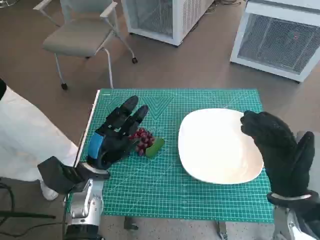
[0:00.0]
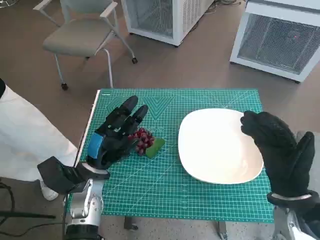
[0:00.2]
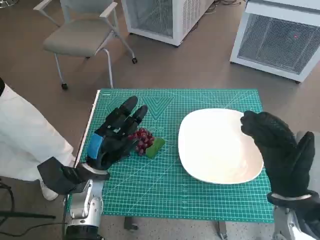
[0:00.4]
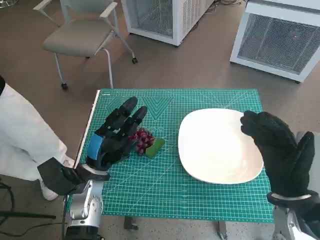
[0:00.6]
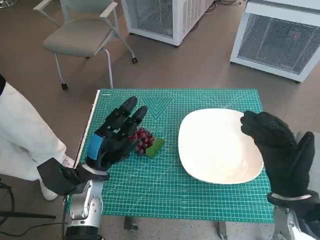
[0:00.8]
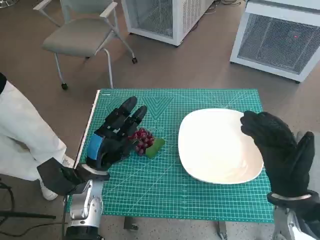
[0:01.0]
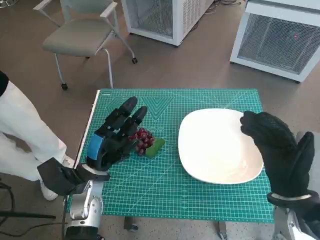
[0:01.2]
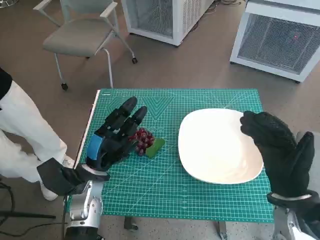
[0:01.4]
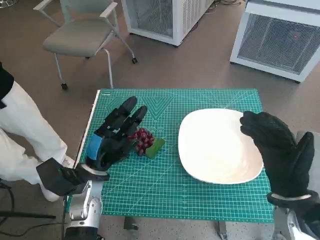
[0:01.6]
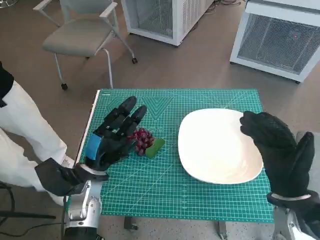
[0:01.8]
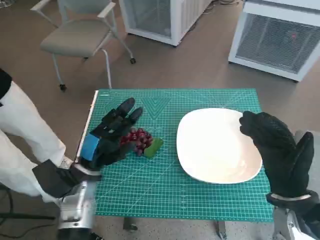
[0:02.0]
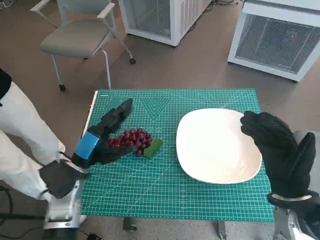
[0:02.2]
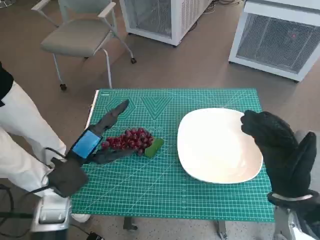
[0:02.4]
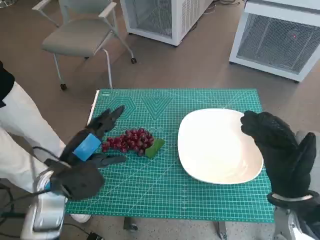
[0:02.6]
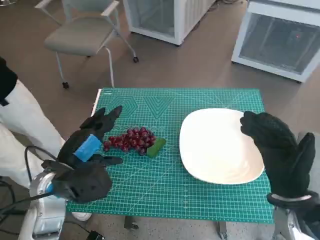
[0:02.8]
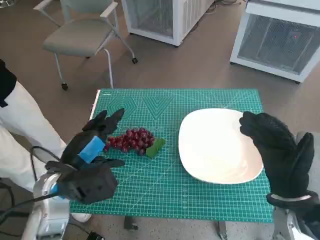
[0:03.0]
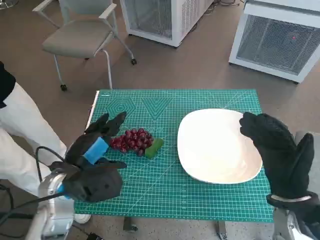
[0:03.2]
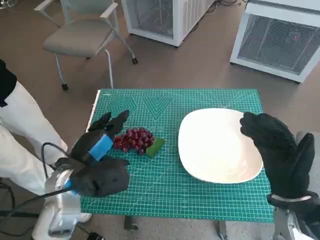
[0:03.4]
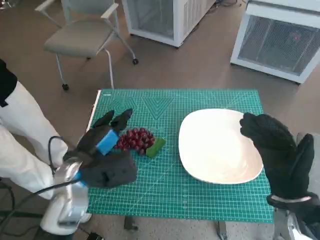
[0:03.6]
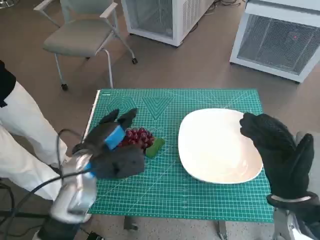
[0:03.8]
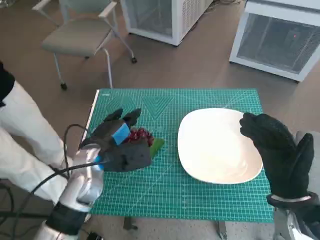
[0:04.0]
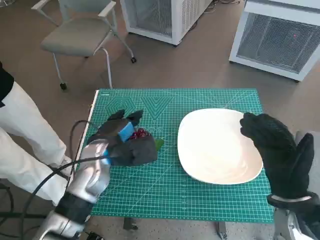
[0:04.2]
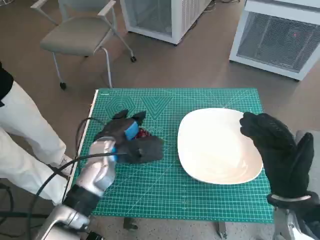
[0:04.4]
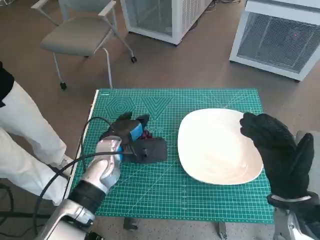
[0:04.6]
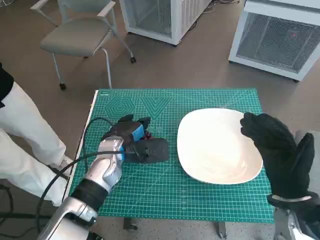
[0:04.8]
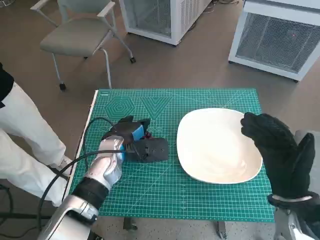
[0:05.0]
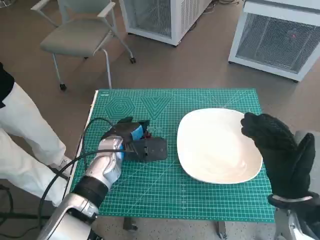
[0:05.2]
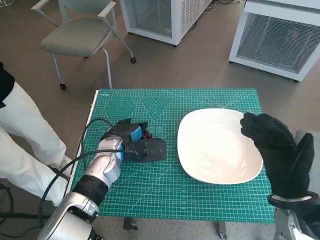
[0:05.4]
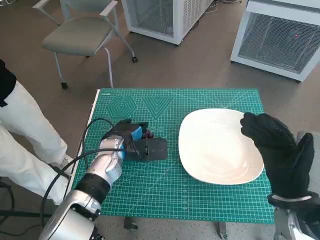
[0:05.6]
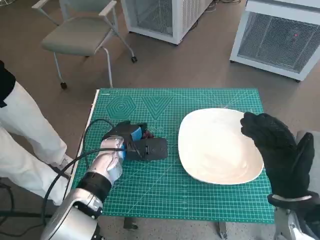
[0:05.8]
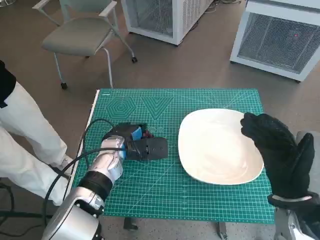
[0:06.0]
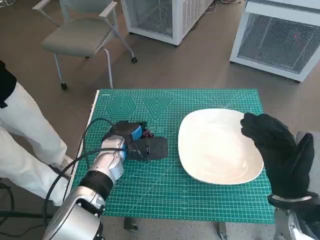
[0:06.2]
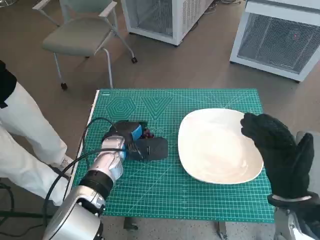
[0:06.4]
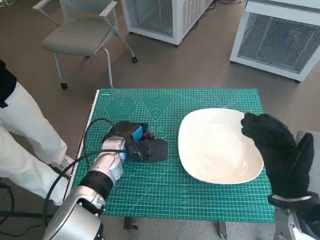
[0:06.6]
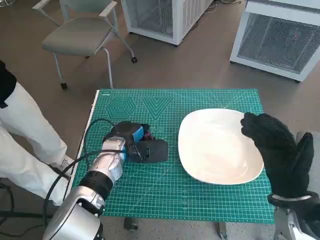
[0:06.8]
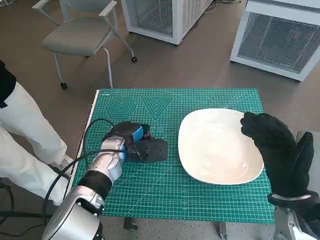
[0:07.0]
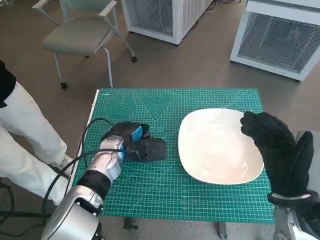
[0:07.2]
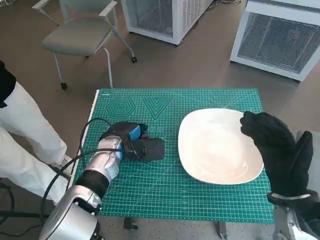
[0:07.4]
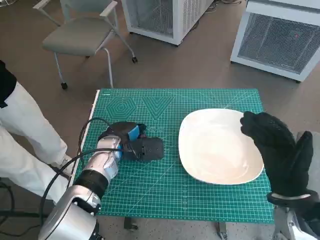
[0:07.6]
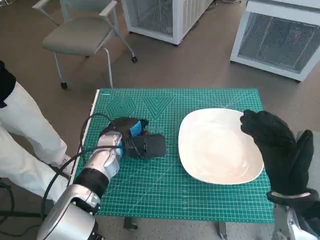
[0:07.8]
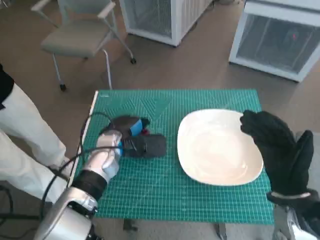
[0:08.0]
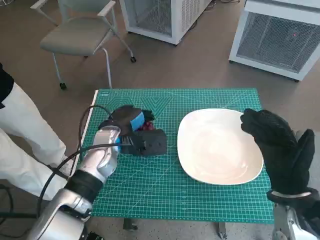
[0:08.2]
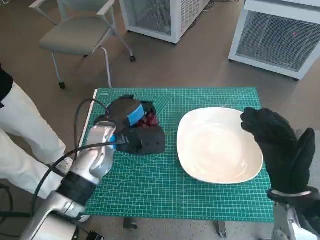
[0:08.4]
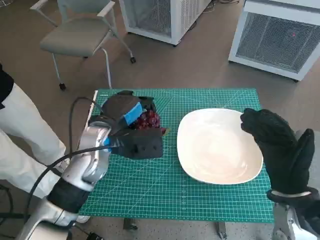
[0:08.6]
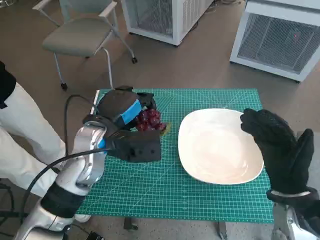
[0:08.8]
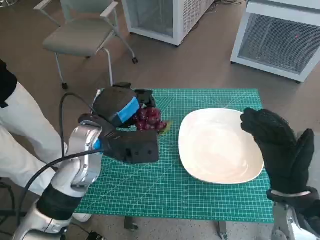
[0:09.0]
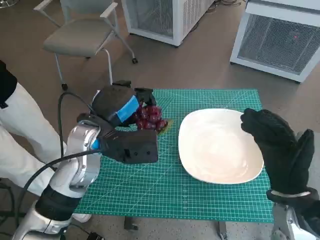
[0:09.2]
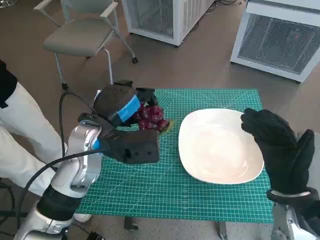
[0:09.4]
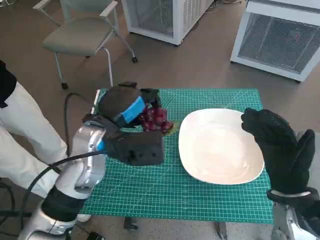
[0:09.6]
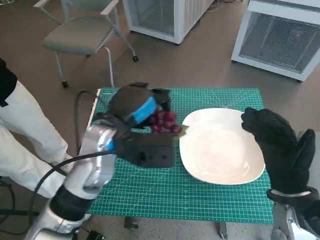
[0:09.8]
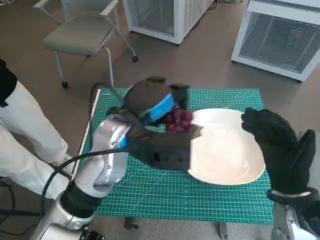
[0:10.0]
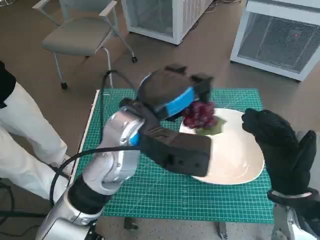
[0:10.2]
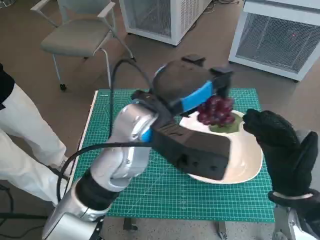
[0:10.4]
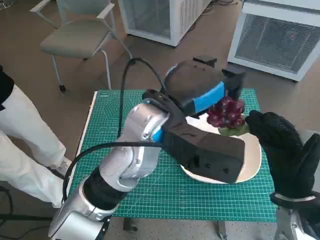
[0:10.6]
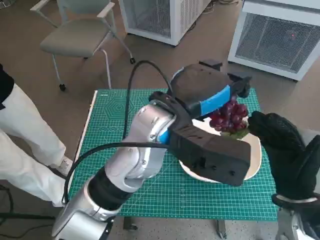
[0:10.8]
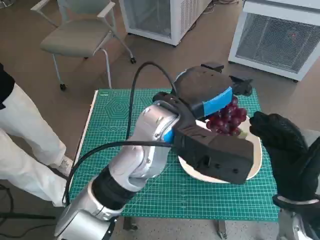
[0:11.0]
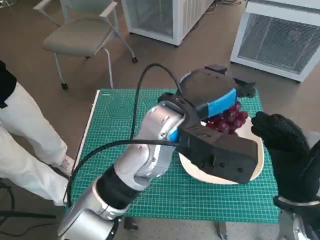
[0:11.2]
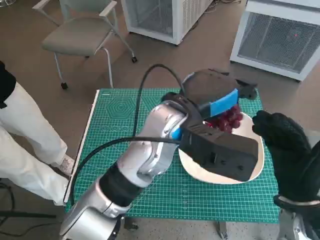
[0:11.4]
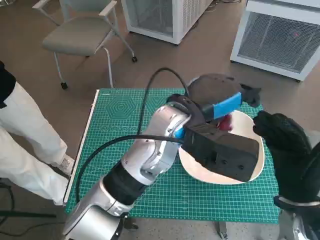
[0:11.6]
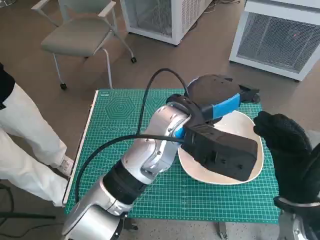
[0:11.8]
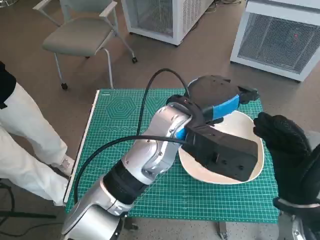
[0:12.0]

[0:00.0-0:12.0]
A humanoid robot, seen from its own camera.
Task of the whole recording: Pick up the grapes and put them on the plate.
Step, 0.0 to 7.6 s: Grasp the grapes with left hand.
Step, 7.8 to 11.6 s: Place the grapes in the plate with left hand.
1.6 to 3.0 s: The left hand travels upward by roughly 5 cm.
3.0 to 4.4 s: The left hand is displaced forward and to the right by approximately 10 cm.
4.4 to 7.6 s: There are only small adjustments of the hands.
7.6 to 9.0 s: The left hand heads upward, covering approximately 10 cm.
9.0 to 10.4 s: The left hand heads to the right and upward, covering about 10 cm.
10.4 to 12.0 s: The left hand ends up approximately 5 cm from where it was.

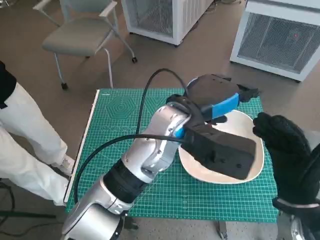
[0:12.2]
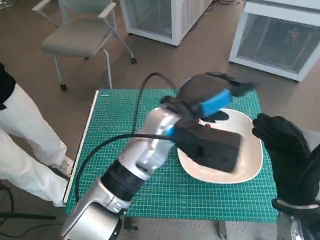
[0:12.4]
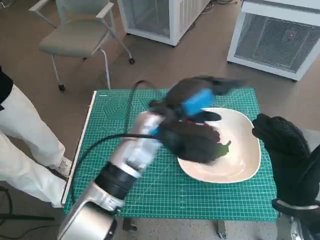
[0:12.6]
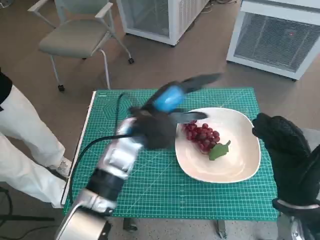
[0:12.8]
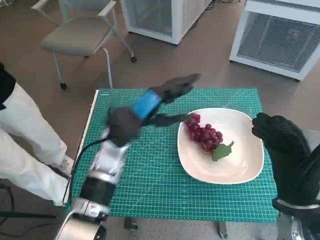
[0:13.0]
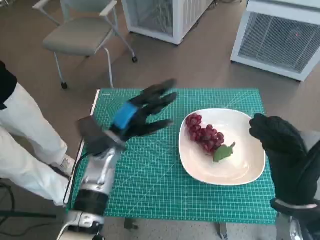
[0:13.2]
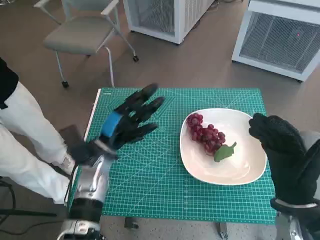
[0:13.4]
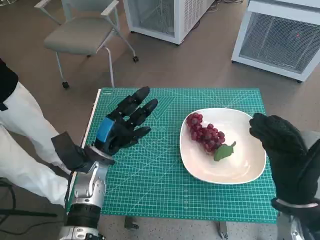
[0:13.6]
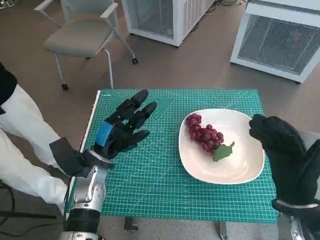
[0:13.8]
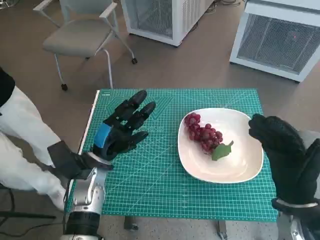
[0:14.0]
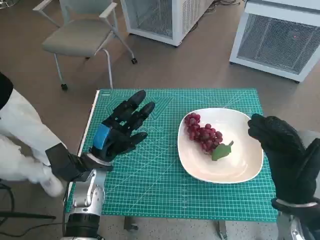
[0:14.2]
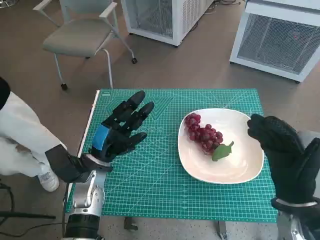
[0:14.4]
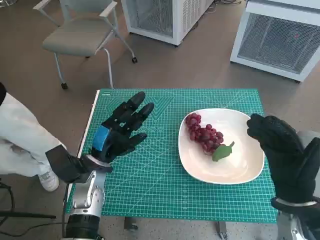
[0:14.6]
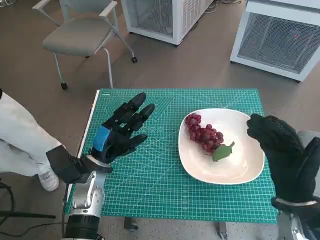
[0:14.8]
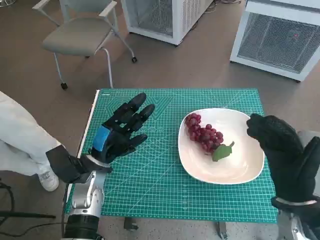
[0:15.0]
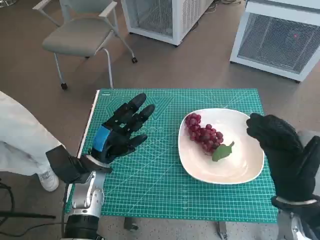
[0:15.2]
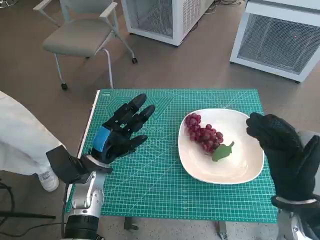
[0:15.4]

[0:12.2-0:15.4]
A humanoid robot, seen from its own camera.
Task of the whole recording: Pick up the grapes and put them on the plate.
12.2 to 13.8 s: The left hand goes approximately 25 cm to the left and downward.
13.8 to 15.4 s: Both hands stay about where they are.

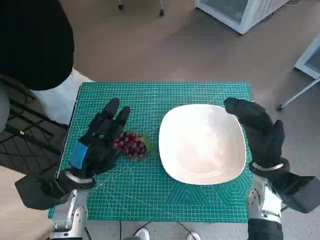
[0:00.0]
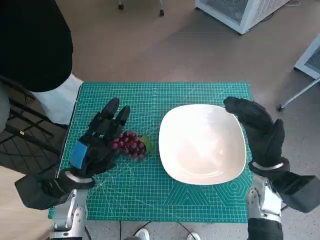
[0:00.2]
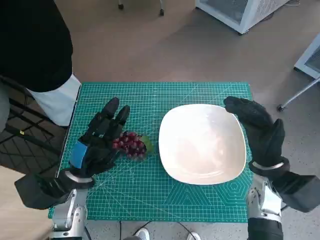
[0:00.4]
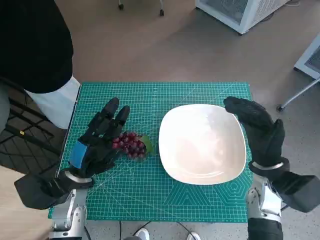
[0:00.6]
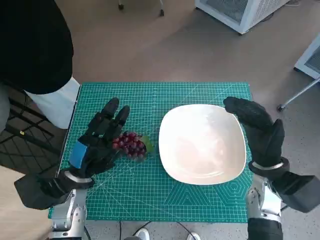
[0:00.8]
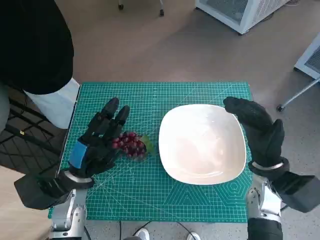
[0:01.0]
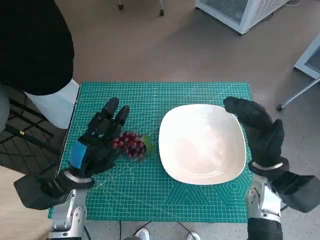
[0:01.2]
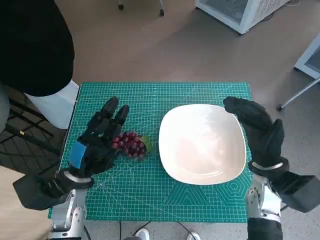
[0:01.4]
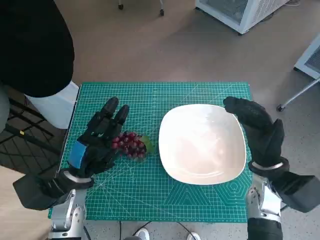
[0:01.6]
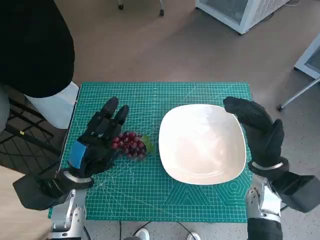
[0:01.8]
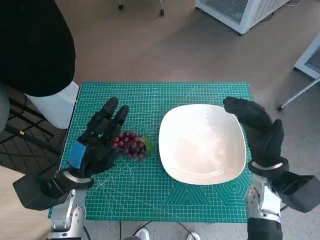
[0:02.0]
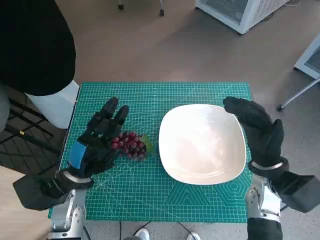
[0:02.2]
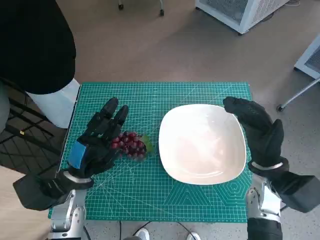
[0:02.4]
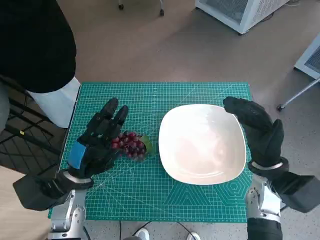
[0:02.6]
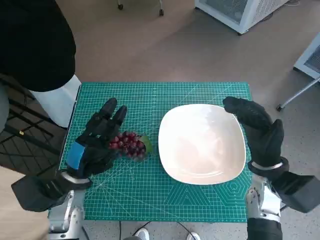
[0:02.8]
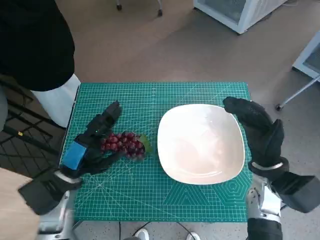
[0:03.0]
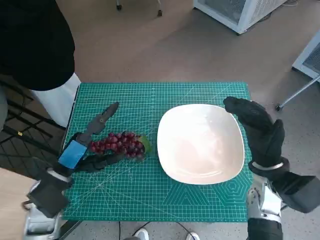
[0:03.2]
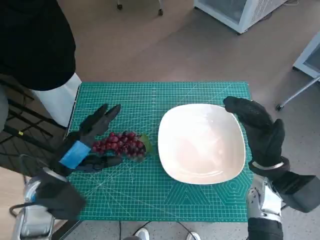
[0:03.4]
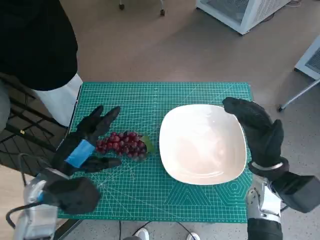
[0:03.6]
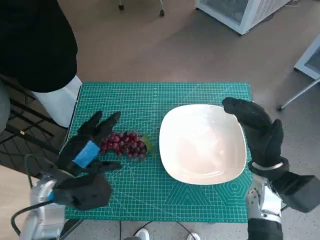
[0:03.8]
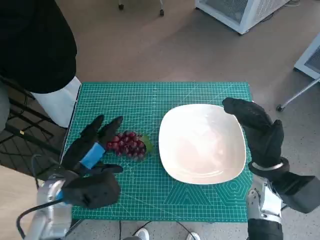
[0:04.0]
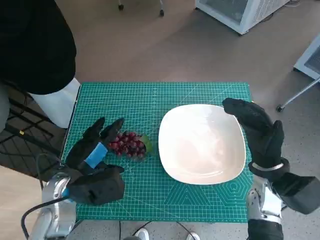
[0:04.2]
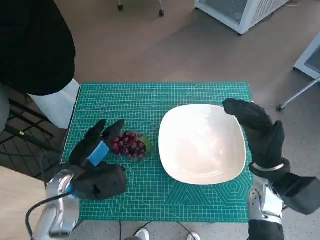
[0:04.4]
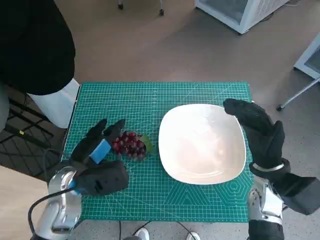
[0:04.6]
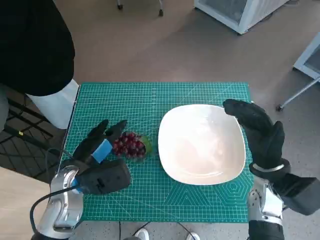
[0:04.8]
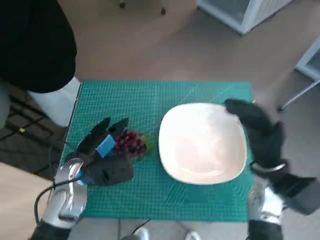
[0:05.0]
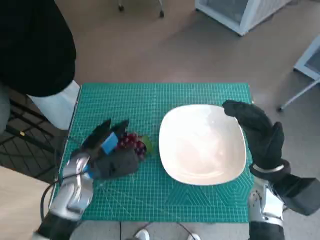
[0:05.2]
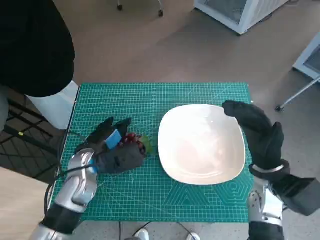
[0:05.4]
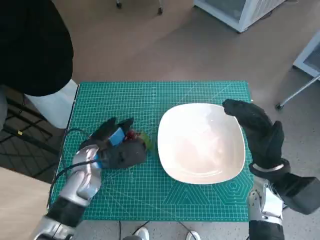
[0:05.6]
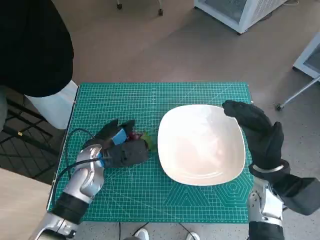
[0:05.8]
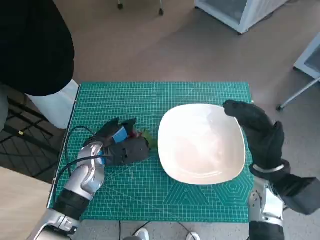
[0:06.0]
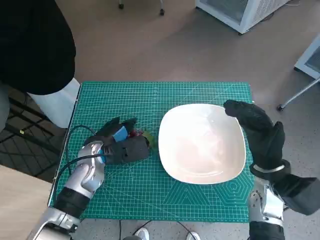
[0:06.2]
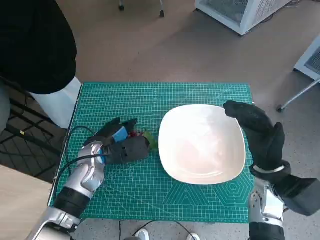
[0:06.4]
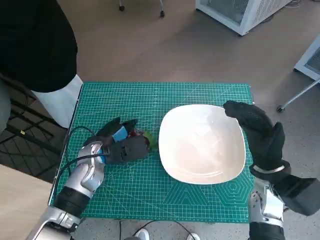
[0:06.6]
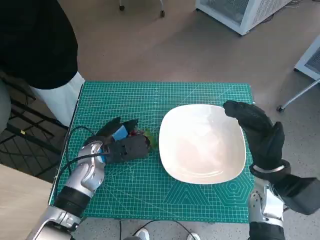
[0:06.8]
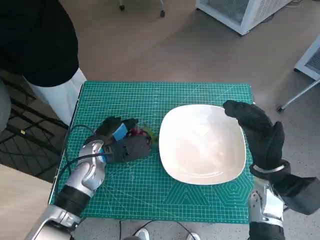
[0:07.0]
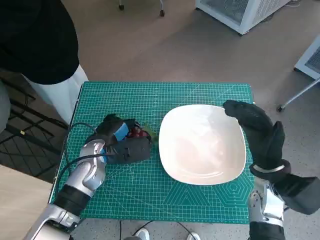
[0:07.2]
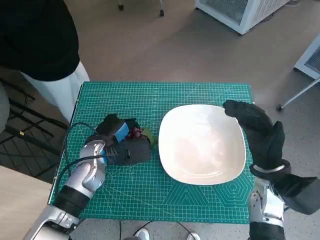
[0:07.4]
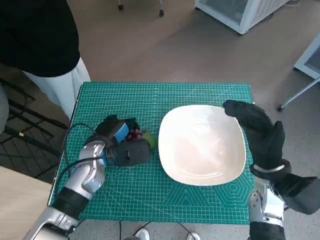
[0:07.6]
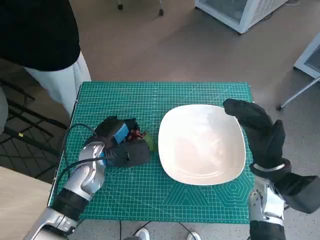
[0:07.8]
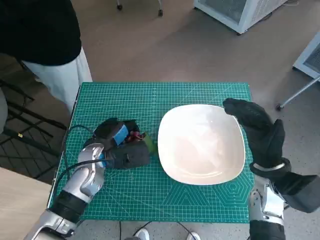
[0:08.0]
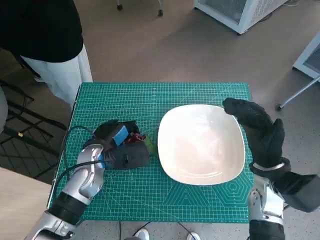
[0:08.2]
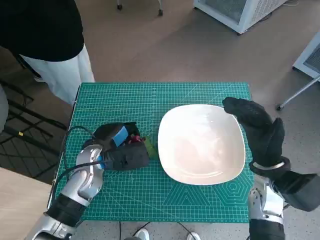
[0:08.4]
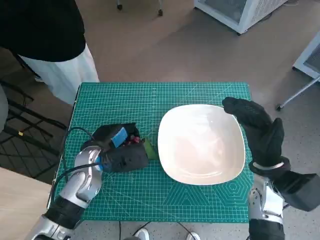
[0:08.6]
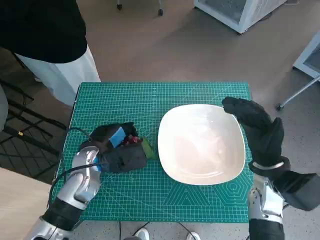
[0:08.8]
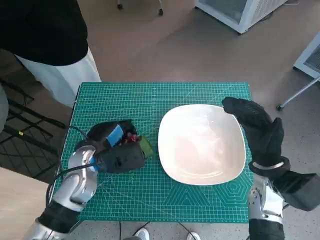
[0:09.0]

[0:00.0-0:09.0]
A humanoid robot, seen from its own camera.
Task of the whole recording: Pick up the grapes and put them on the plate.
Step, 0.0 to 7.8 s: Grasp the grapes with left hand.
1.6 to 3.0 s: The hands move only a little.
4.4 to 6.0 s: The left hand shifts some 10 cm forward.
6.0 to 9.0 s: The hands make only small movements.
